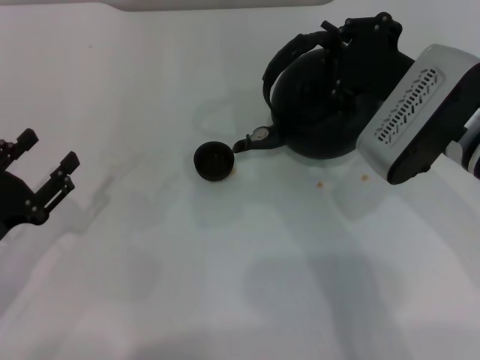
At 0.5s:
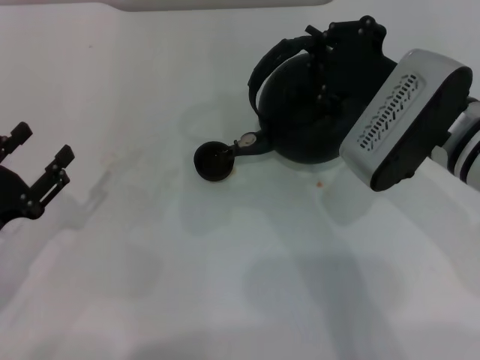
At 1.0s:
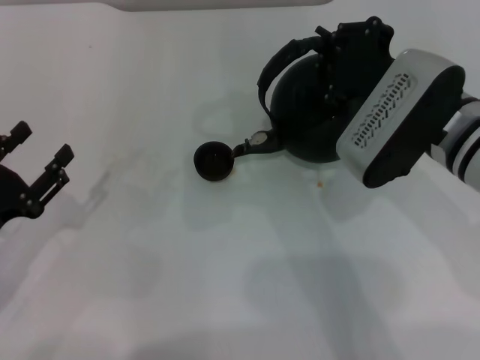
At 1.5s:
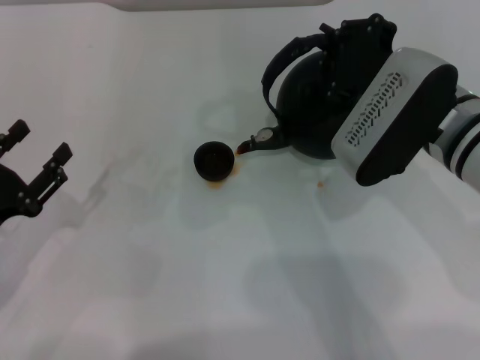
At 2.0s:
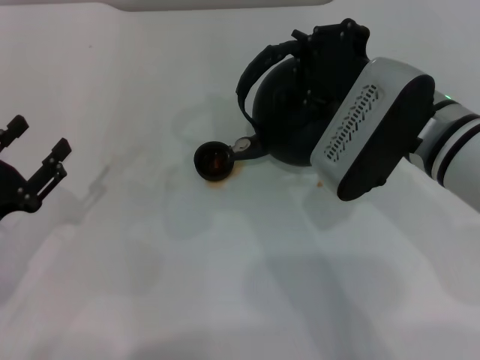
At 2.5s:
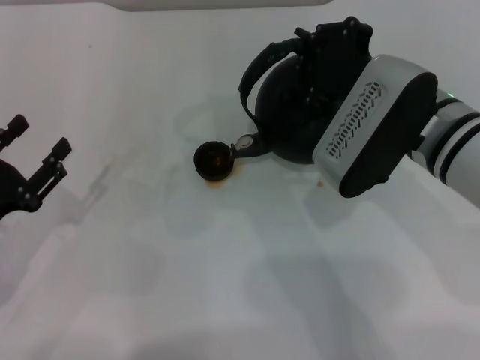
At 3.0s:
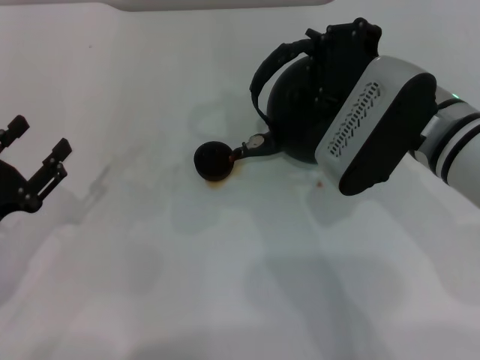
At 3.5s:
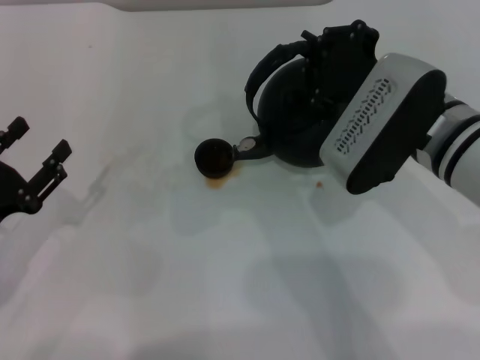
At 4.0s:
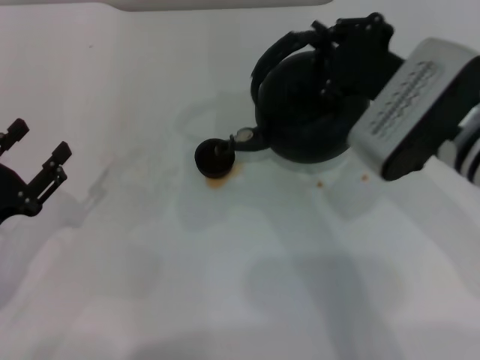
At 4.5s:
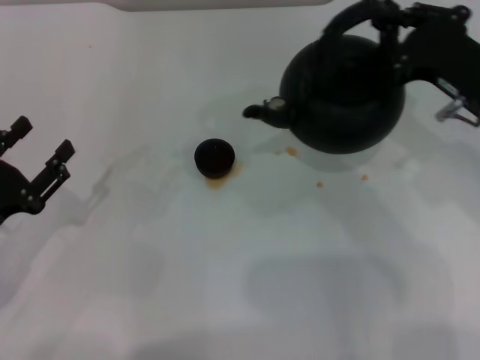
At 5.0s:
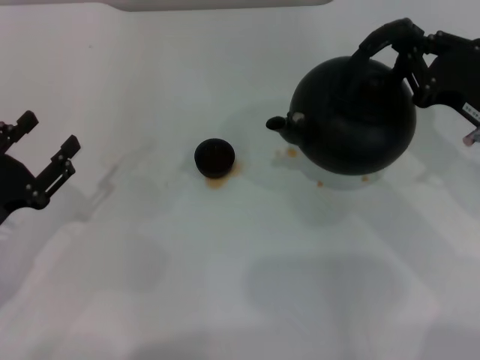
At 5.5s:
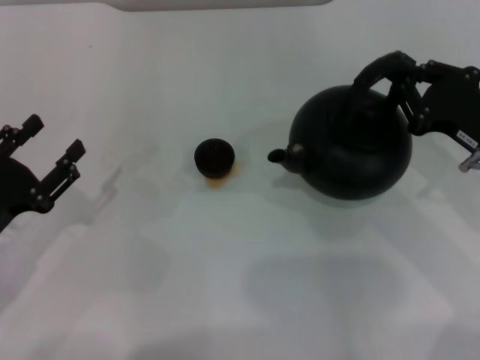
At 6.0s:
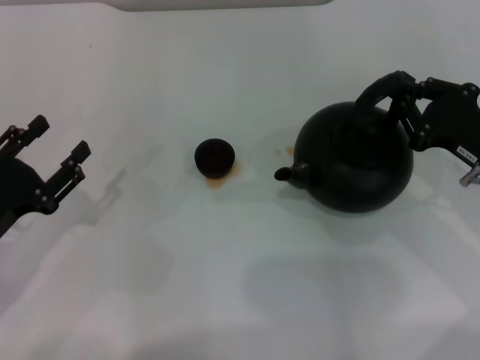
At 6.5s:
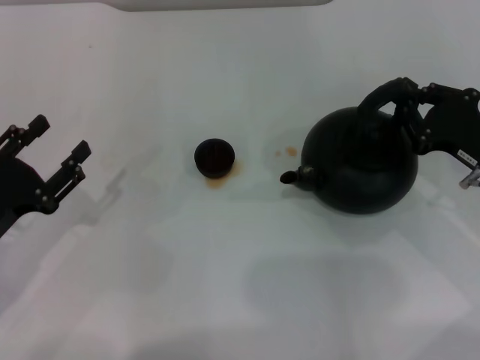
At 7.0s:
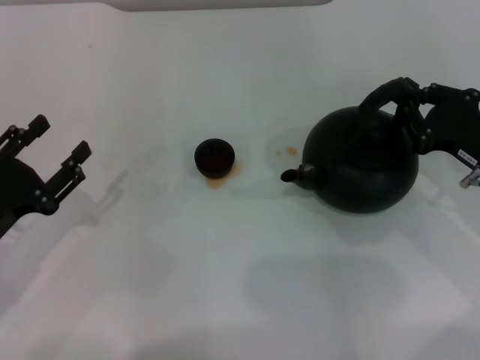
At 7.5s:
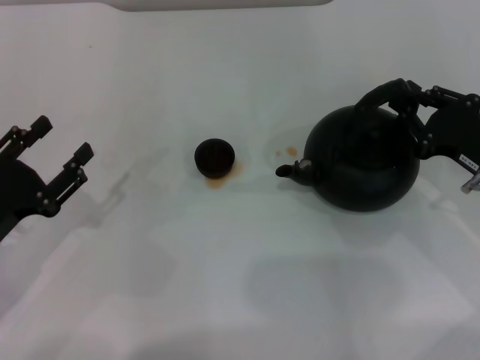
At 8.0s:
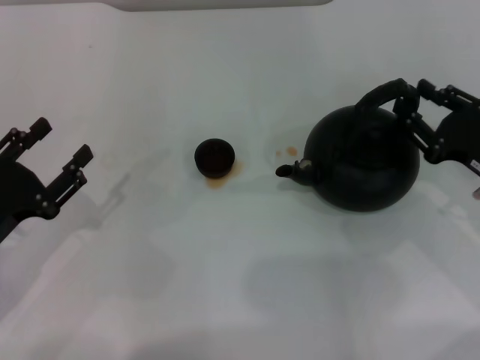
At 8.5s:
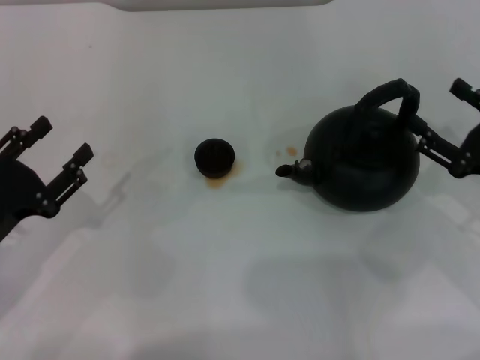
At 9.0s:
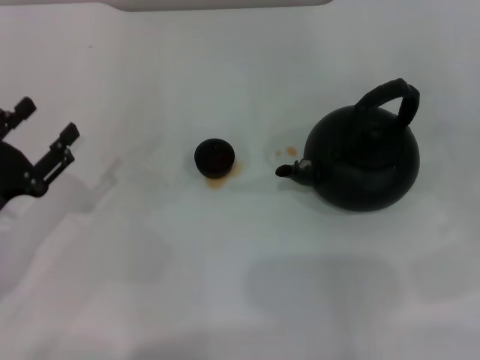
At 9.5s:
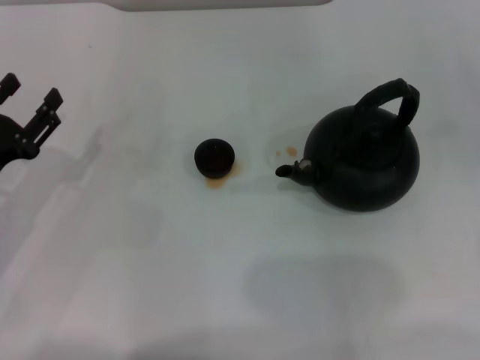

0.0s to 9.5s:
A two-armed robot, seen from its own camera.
Task of the whole recording: Grasp the handle of the teapot with one hand and pour tea into the teacup.
Step, 0.0s to 4.0s: Pour tea into the teacup with the right gripper.
Step, 4.5s to 8.5s: Put down the teapot with the right gripper.
0.0s to 4.0s: The grippers move only a little.
4.0s to 5.5s: The right gripper heads to the right and downward, covering approximately 10 cm.
5.5s to 7.5s: There are only small adjustments of the grippers.
7.5s to 9.5s: The right gripper moves to the right and backward, approximately 15 cm, and opens its fingers.

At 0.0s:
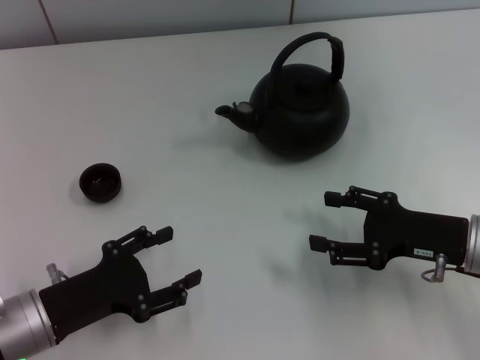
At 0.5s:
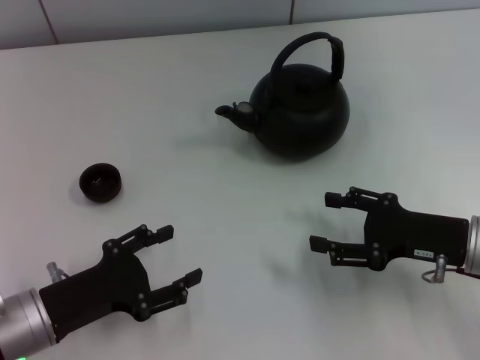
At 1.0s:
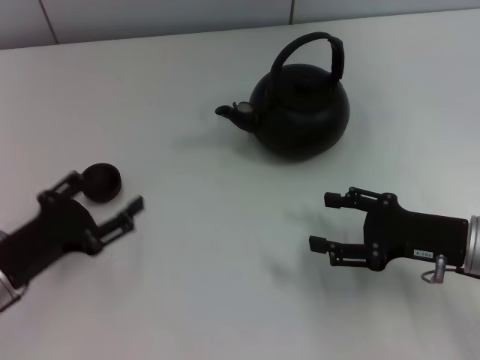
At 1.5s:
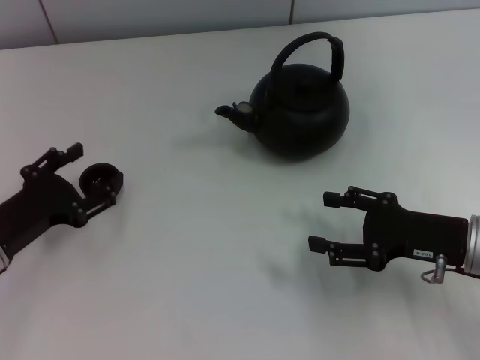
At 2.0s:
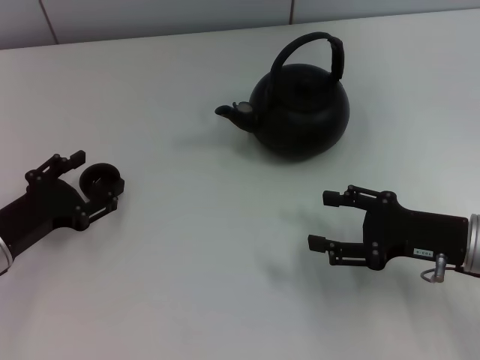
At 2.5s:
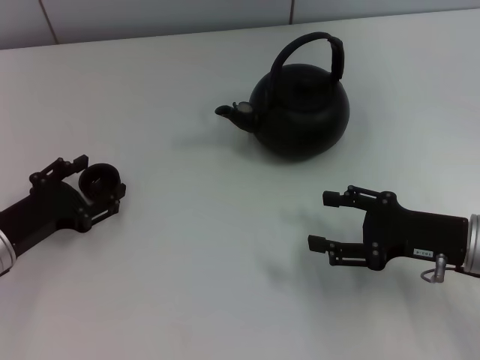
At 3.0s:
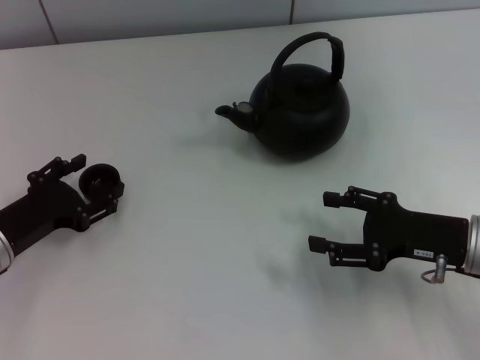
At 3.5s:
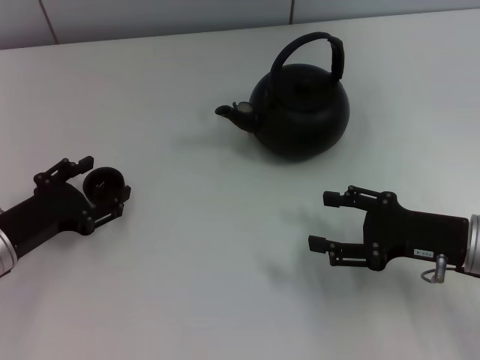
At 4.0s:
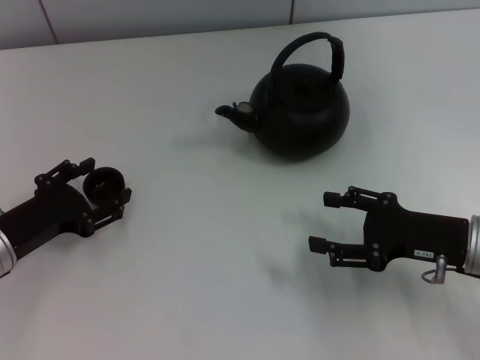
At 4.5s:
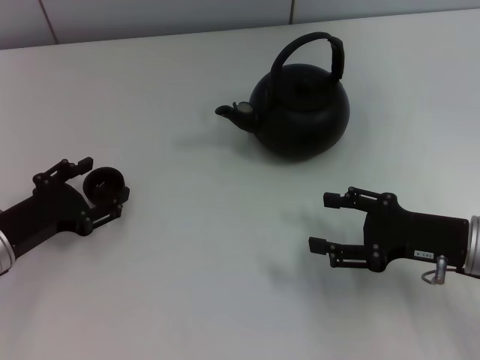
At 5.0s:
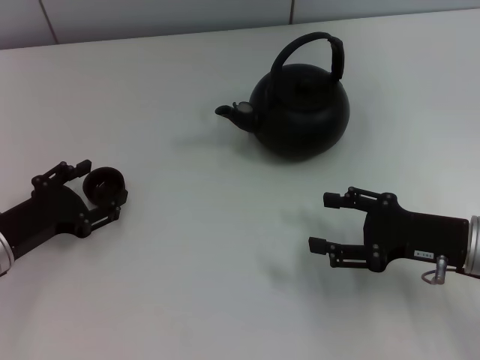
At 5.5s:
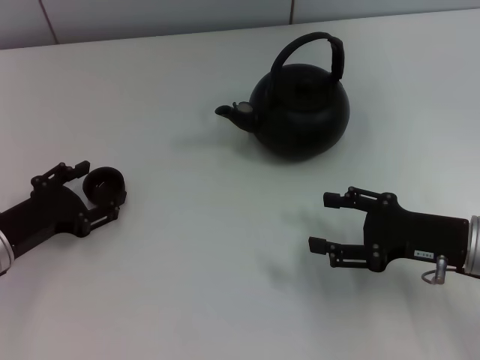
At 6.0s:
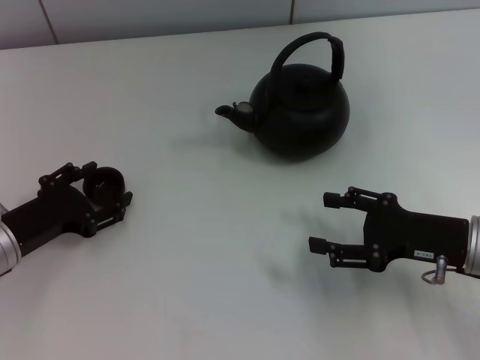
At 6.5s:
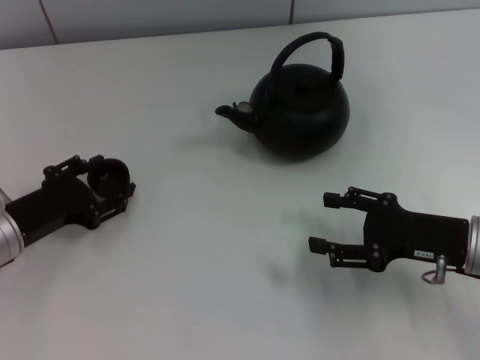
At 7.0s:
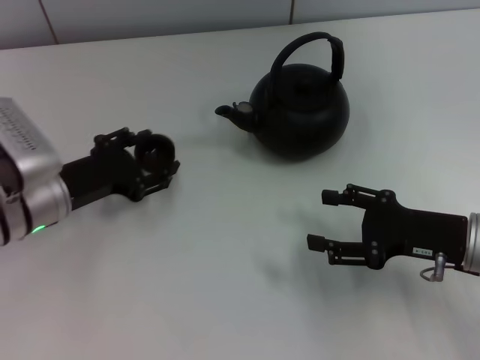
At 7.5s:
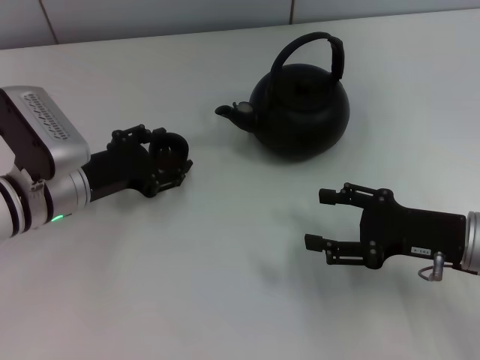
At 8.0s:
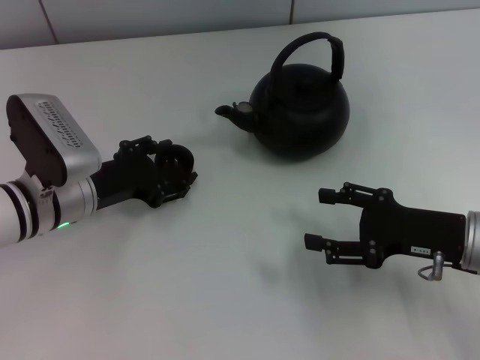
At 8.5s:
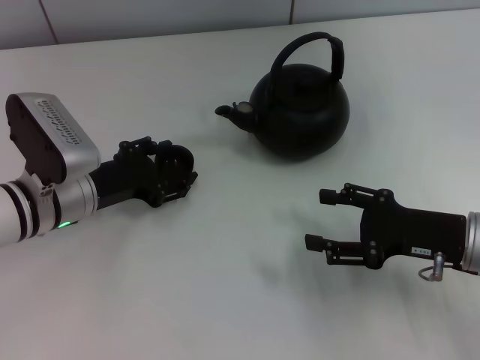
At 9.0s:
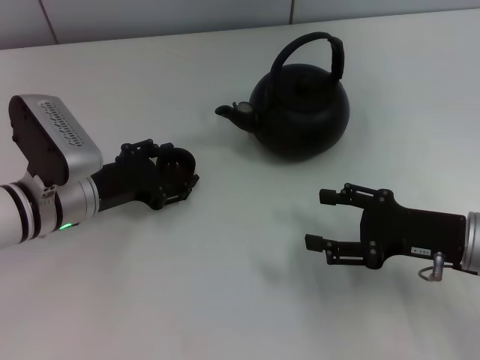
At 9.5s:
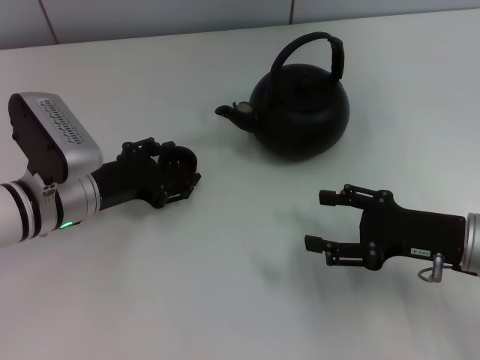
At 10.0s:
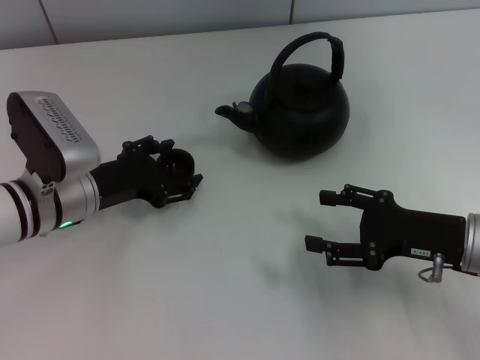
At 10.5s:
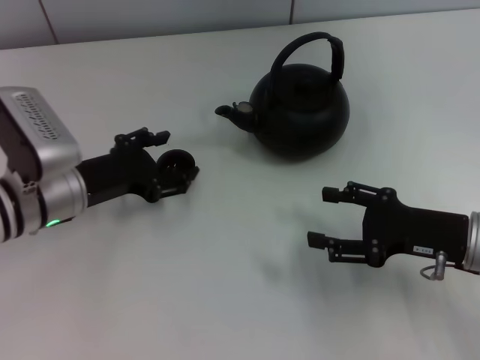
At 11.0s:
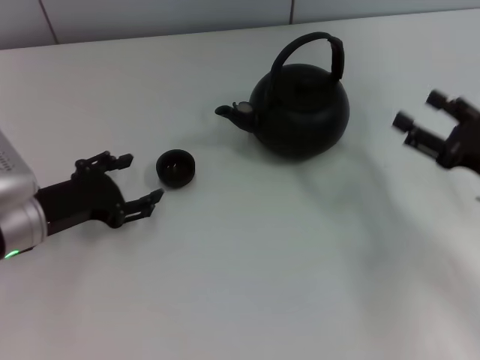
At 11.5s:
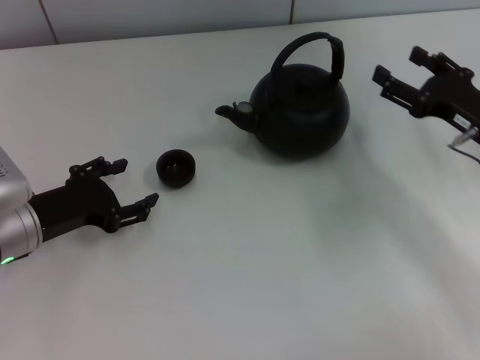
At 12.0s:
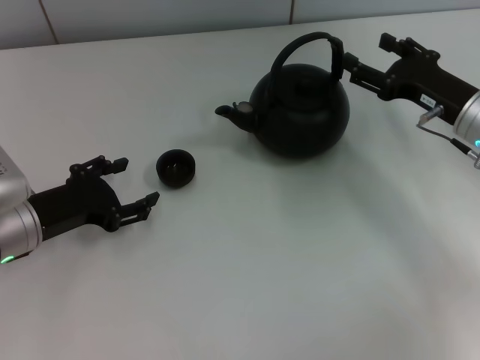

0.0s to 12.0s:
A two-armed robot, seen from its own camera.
Task of the whole recording: Grasp the handle of the teapot with one hand and pour tea into the teacup.
Step, 0.0s to 6.5s: Pick up the teacup with the left gripper.
Step, 7.0s to 10.5s: Place the teacup in the center of view with the left gripper.
0.0s to 2.0s: The left gripper shifts roughly 5 cm forward.
2.0s to 4.0s: Both grippers stay put.
4.0s to 6.0s: Both grippers stay about where they are.
6.0s to 8.0s: The left gripper moves to the right and forward, roughly 10 cm.
8.0s to 10.0s: Both grippers stay put.
10.0s to 12.0s: The right gripper shifts roughly 10 cm forward, while the left gripper shifts approximately 5 cm to the left.

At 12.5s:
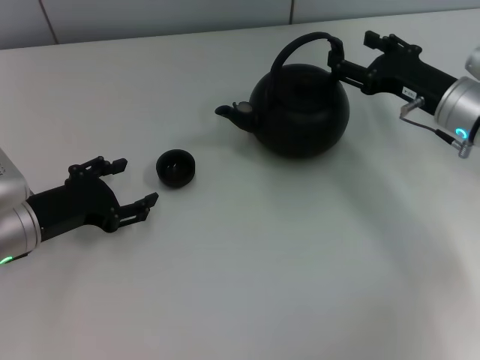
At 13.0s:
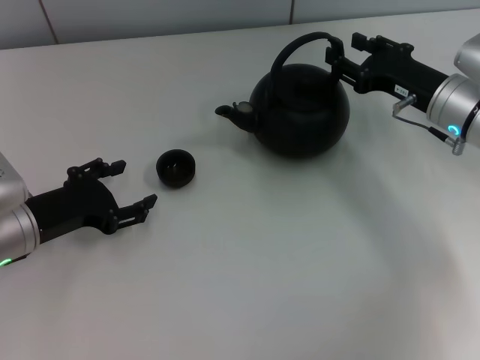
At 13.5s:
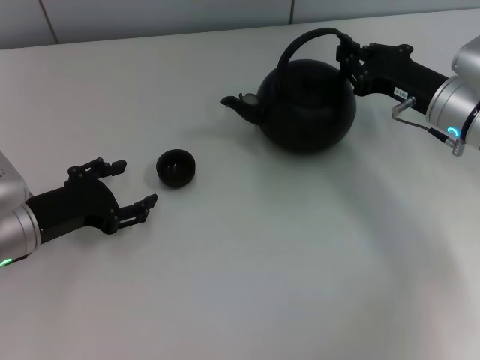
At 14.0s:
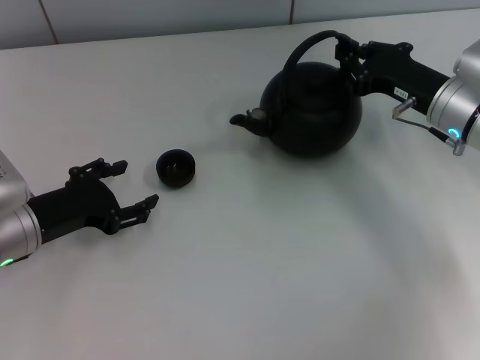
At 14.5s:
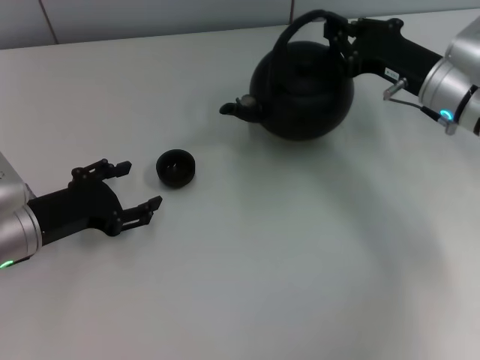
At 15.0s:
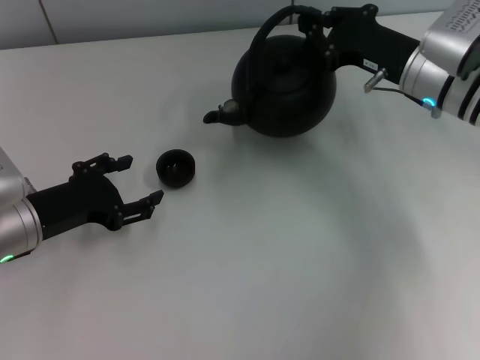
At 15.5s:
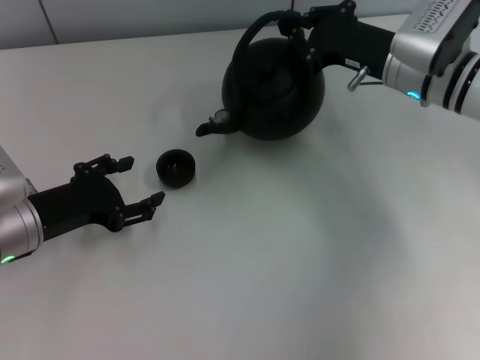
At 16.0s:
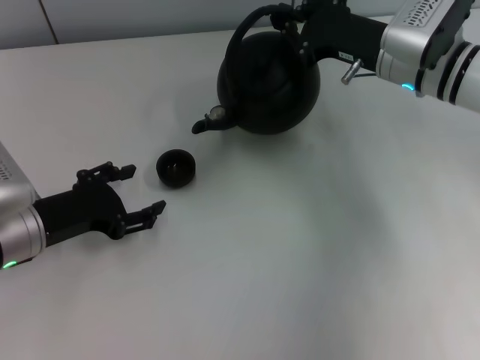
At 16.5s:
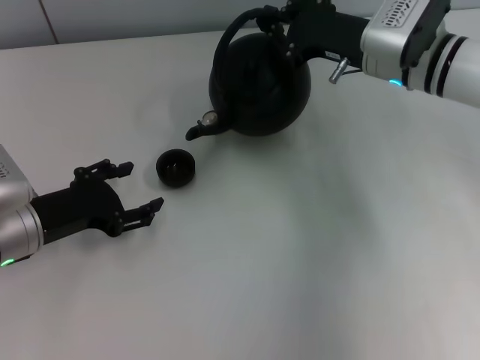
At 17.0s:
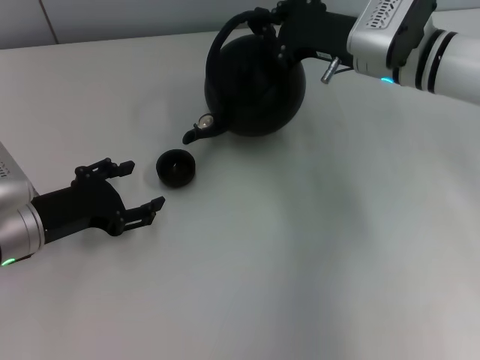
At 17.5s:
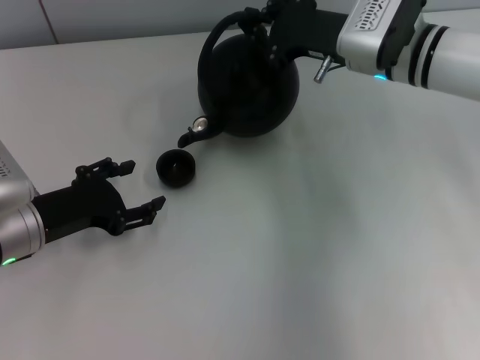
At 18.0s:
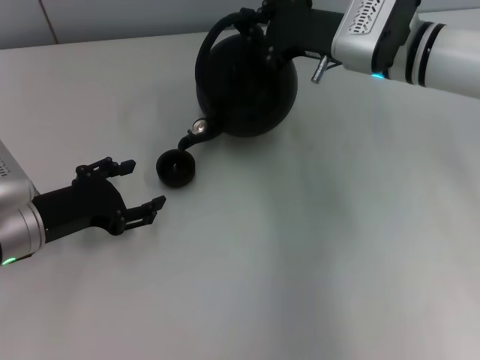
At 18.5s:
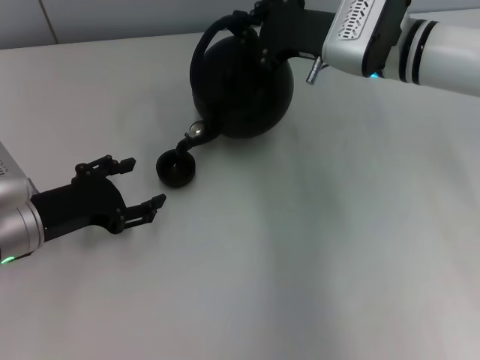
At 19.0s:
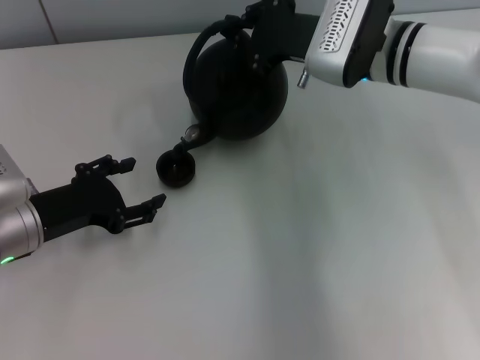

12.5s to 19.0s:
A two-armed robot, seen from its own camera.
Task of the whole recording: Grasp the handle of the teapot with one hand and pour tea into the teacup.
Step, 12.5s to 14.5s: Pick up the teapot with the right gripper.
12.5s to 14.5s: The right gripper closes its fingers.
14.5s to 17.0s: The right gripper heads to the left, covering approximately 5 cm.
17.0s to 19.0s: There are only small adjustments of the grippers.
